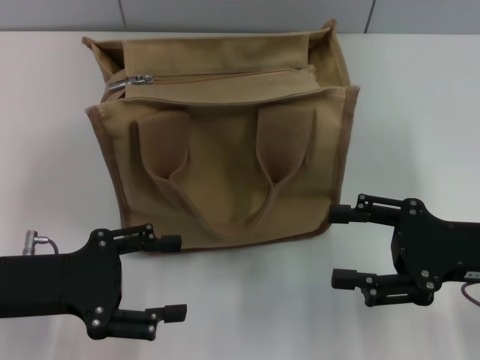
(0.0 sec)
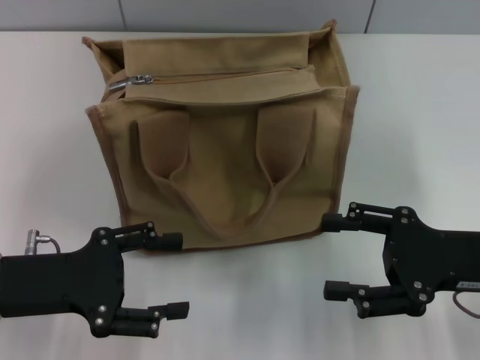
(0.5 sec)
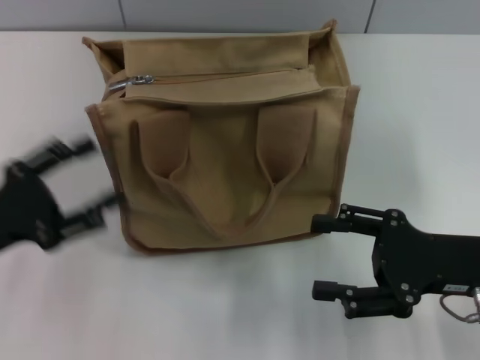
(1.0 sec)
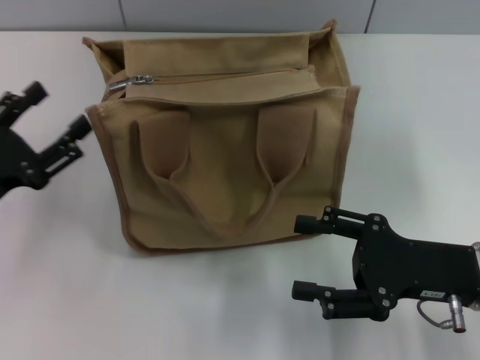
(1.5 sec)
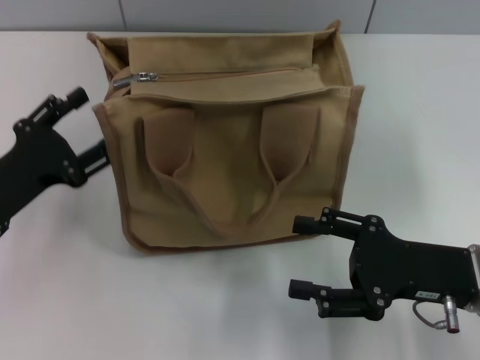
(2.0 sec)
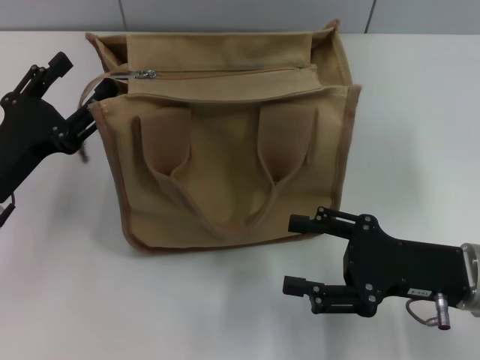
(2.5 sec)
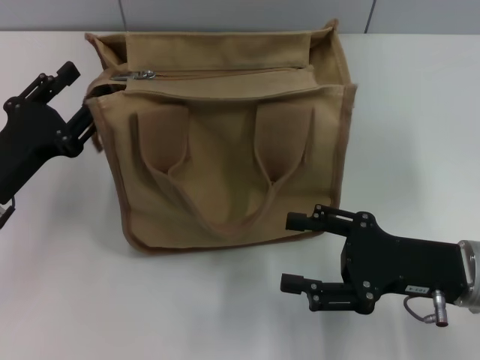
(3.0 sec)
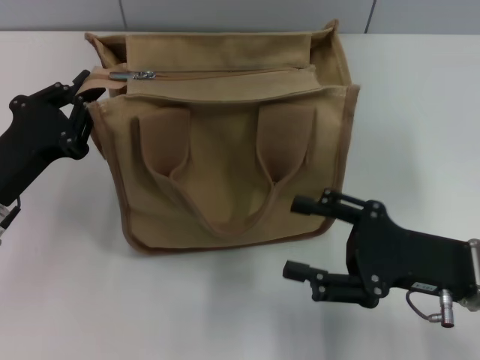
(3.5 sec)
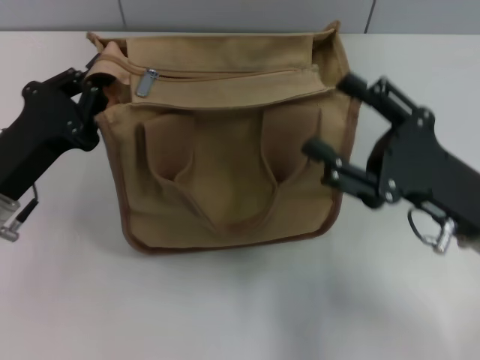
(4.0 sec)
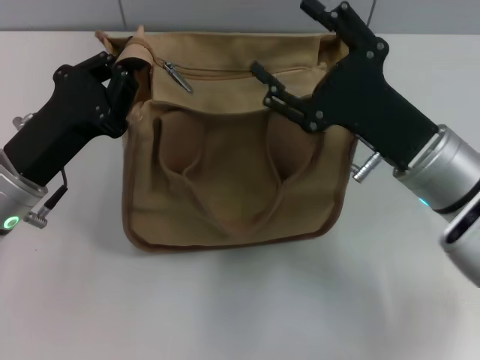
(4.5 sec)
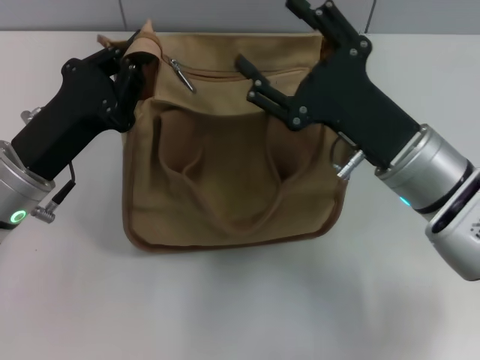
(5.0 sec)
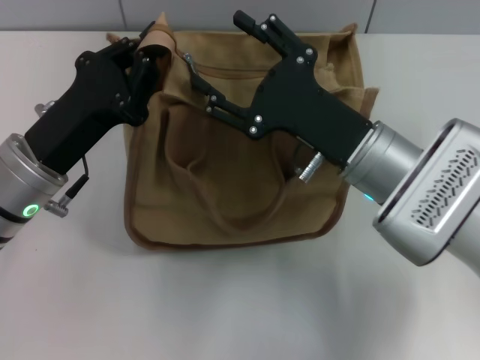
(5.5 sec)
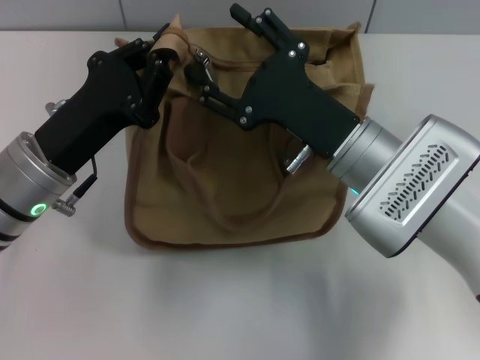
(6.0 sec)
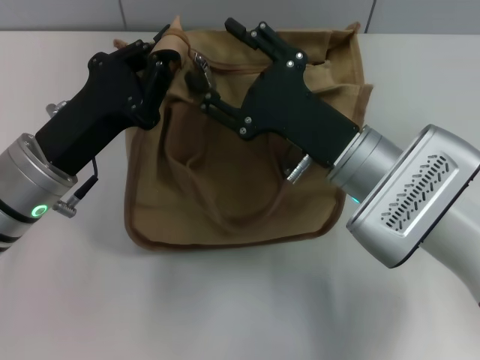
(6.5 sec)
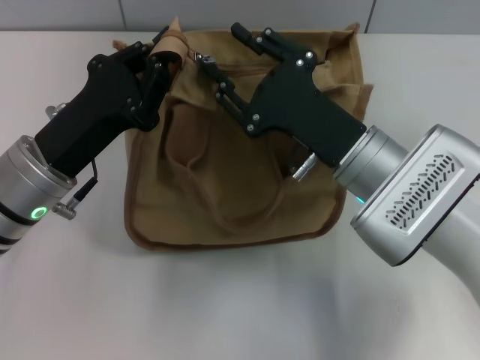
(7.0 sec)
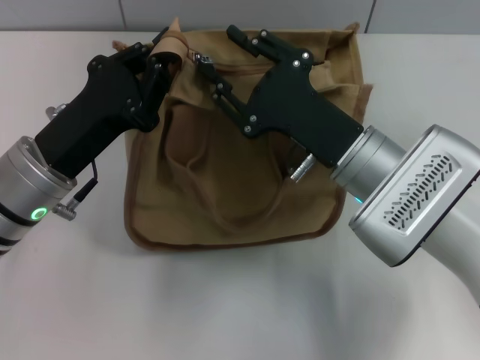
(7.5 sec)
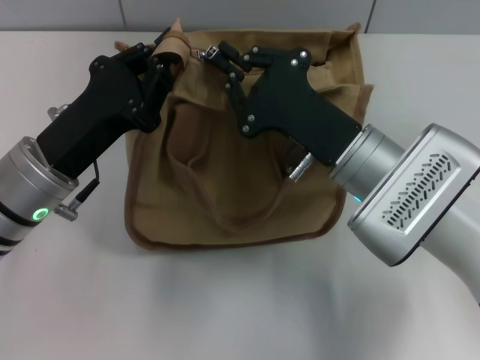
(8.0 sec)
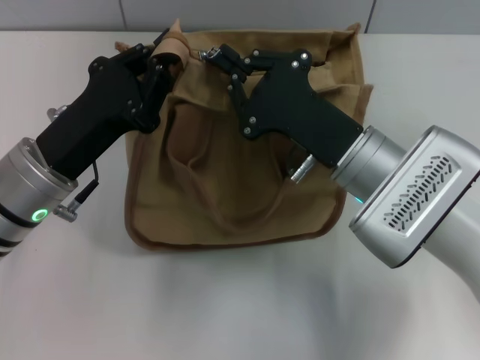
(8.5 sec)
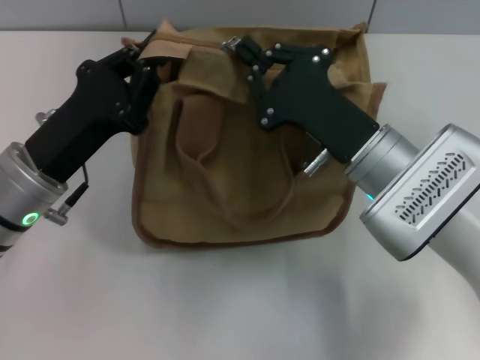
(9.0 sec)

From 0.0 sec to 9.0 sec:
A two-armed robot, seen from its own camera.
From 2.0 sec to 4.5 sec: The left gripper travels to the right by some 5 cm, and closes. Meanwhile the right gripper travels to the left and forward by roughly 10 cm.
From 4.5 sec to 7.0 sec: The right gripper changes place by some 5 cm.
From 7.0 sec to 9.0 sec: The right gripper closes its fingers.

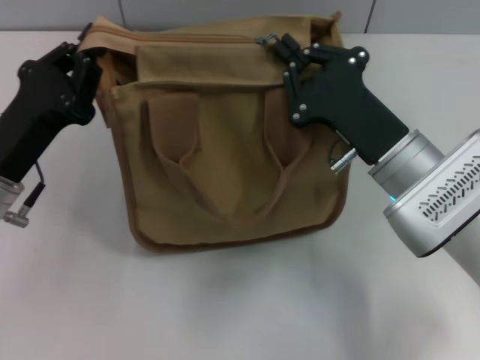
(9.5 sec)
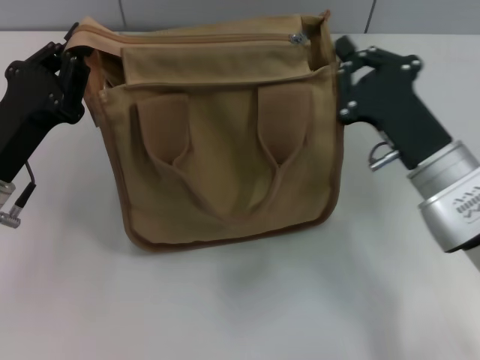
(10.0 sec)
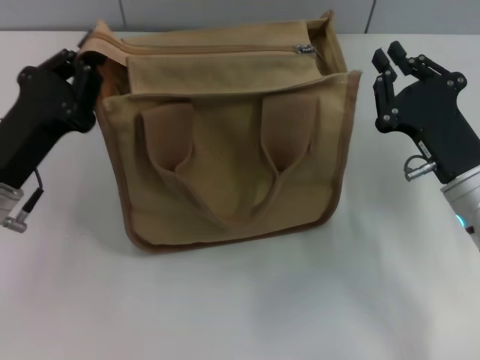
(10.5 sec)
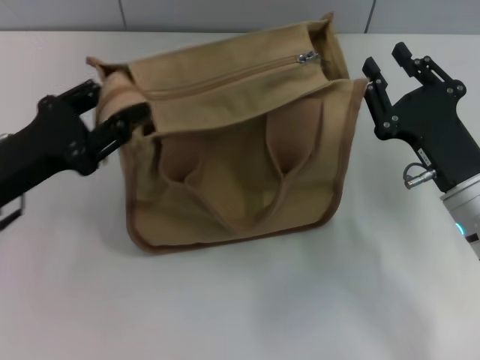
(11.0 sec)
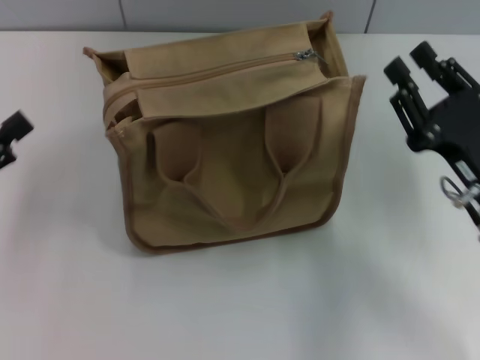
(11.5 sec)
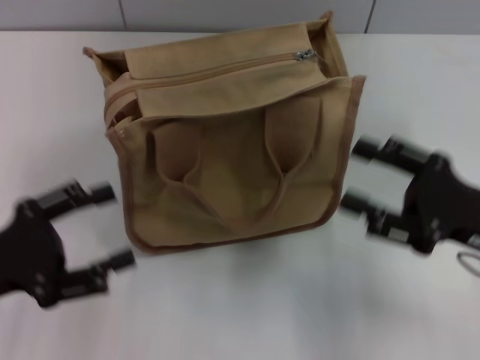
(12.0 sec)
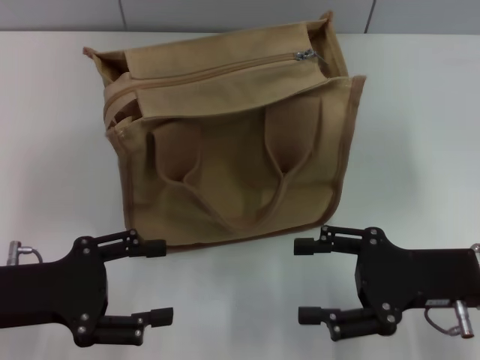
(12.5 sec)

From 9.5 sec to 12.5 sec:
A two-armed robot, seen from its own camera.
Step, from 10.5 sec to 11.0 sec: Grab the zipper with your left hand.
From 9.5 sec to 11.0 sec: The right gripper shifts some 5 cm to the right, and opens up; the left gripper opens its fingers.
From 11.0 sec to 12.5 sec: The left gripper moves backward, some 5 cm, moves some 10 cm to the left and comes back, and opens, while the right gripper opens.

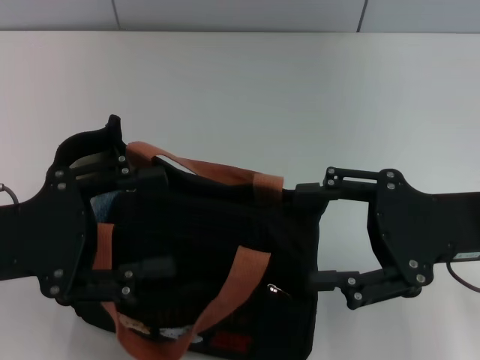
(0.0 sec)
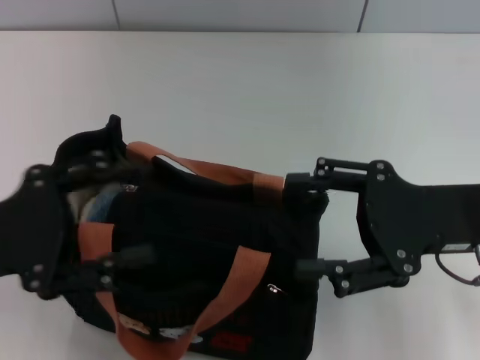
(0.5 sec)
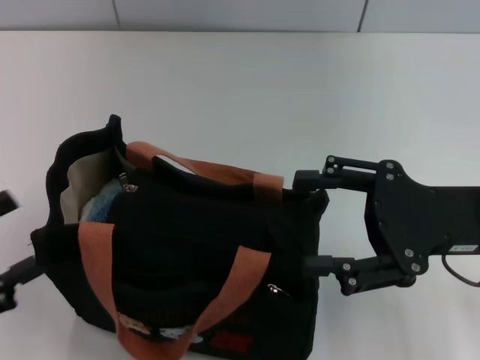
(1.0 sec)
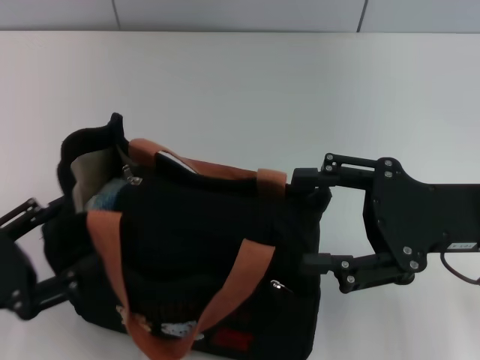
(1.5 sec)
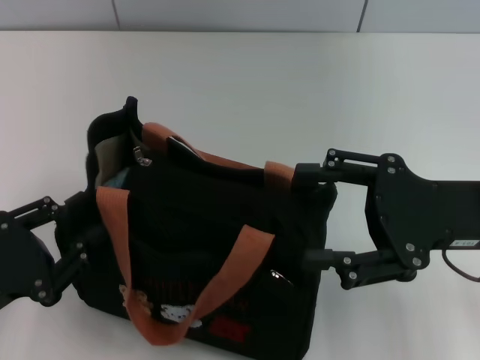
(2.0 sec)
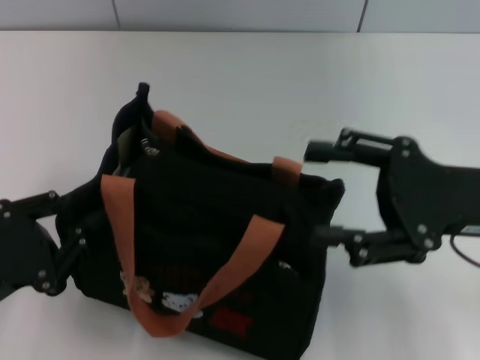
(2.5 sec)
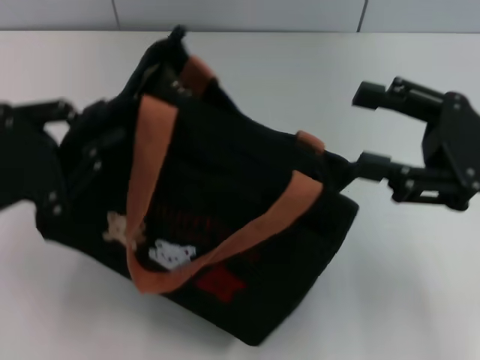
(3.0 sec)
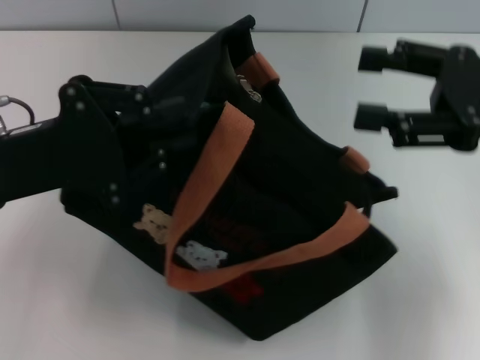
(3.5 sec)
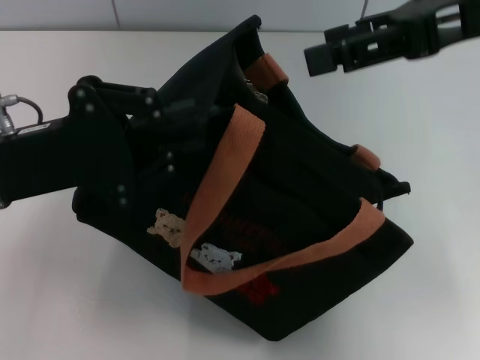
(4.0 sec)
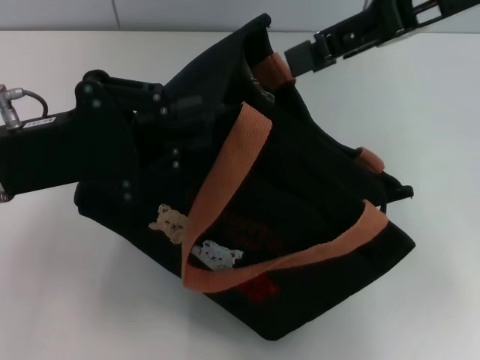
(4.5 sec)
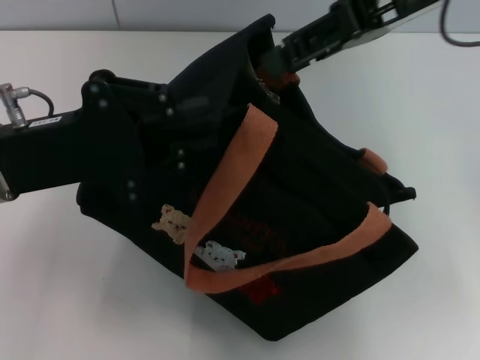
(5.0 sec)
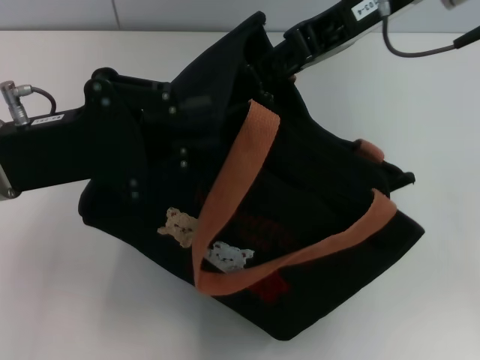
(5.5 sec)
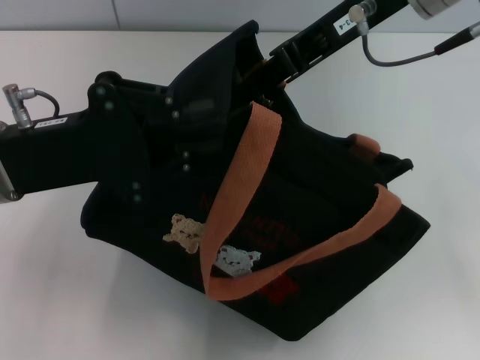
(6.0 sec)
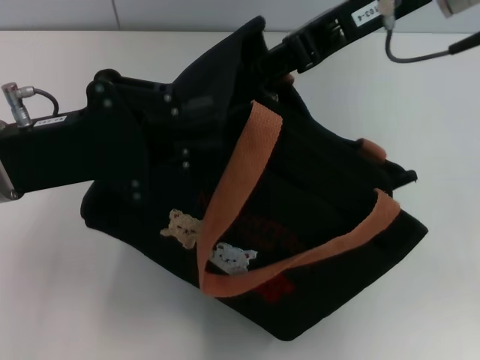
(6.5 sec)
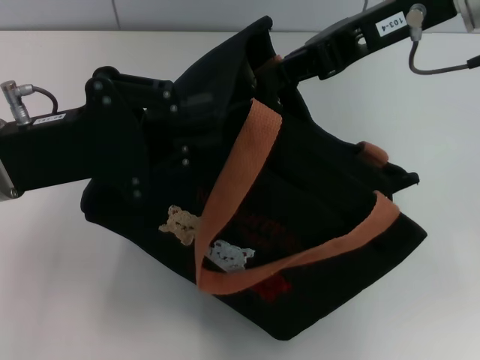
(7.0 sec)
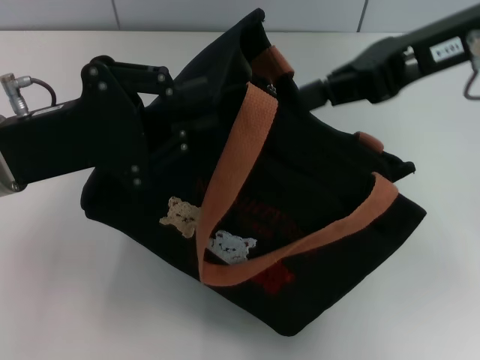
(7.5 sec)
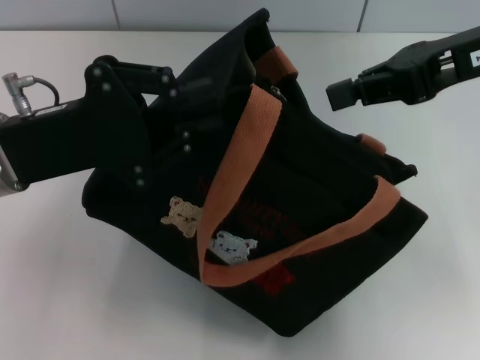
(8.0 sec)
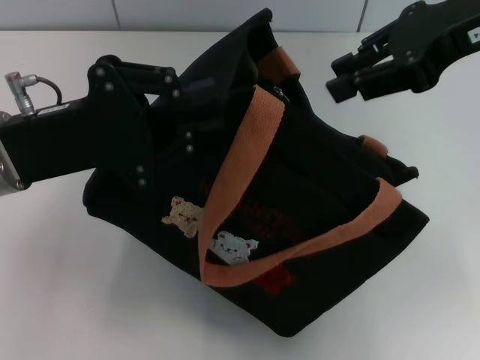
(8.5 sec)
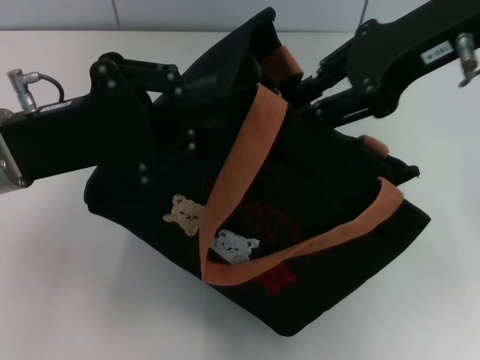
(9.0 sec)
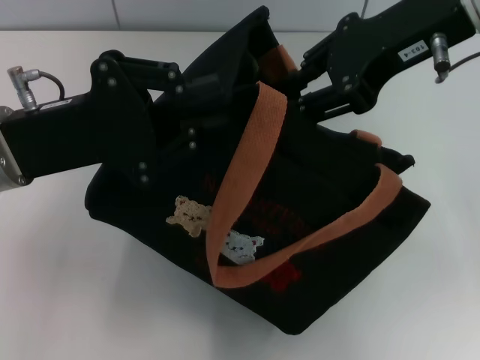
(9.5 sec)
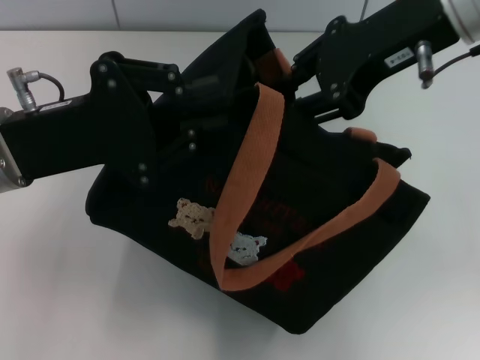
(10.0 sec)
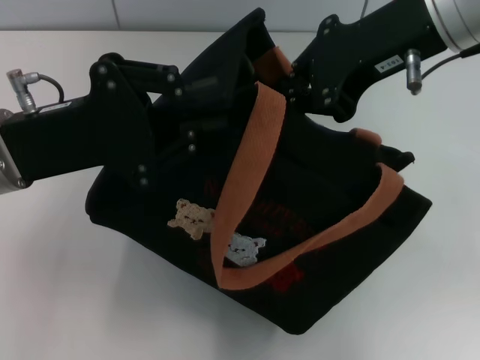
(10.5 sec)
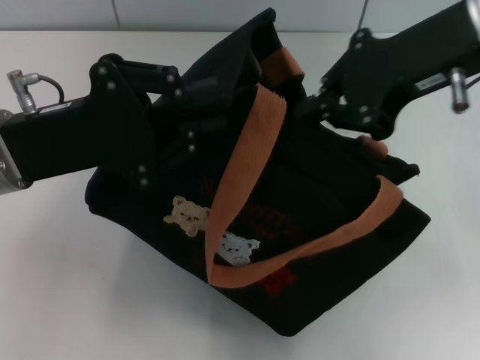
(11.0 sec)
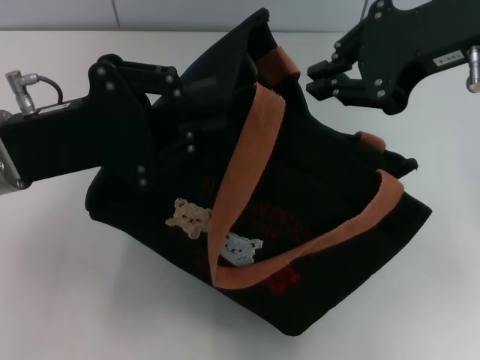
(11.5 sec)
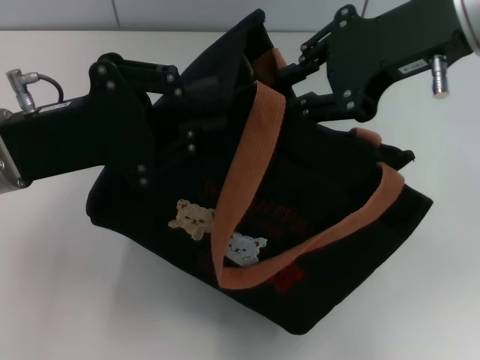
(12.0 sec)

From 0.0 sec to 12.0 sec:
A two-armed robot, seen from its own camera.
From 0.0 sec to 2.0 sec: The left gripper moves downward and backward, about 10 cm, and closes.
From 2.0 sec to 4.0 sec: The right gripper moves upward and forward, some 20 cm; the left gripper heads forward, upward and to the right, covering approximately 15 cm, and closes.
From 4.0 sec to 6.0 sec: The right gripper is displaced to the left by roughly 10 cm, and closes up.
From 6.0 sec to 8.0 sec: The right gripper heads to the right, covering some 10 cm.
From 8.0 sec to 10.0 sec: The right gripper travels to the left by some 5 cm, and opens up.
From 10.0 sec to 12.0 sec: The right gripper closes, then opens again.

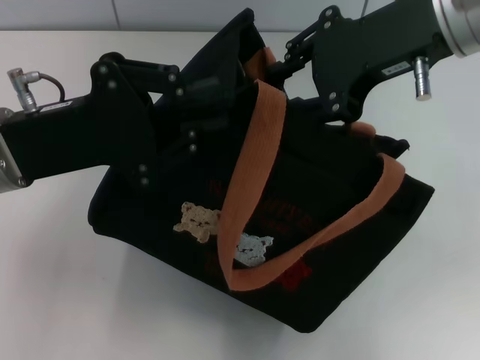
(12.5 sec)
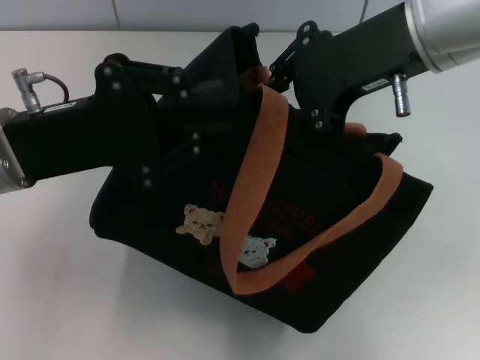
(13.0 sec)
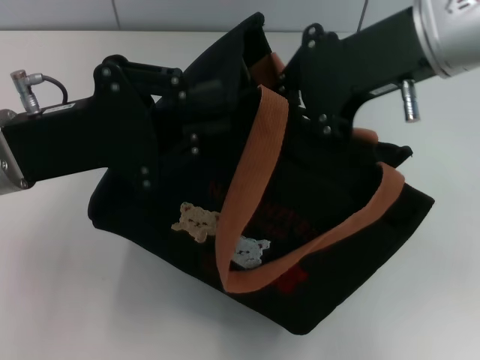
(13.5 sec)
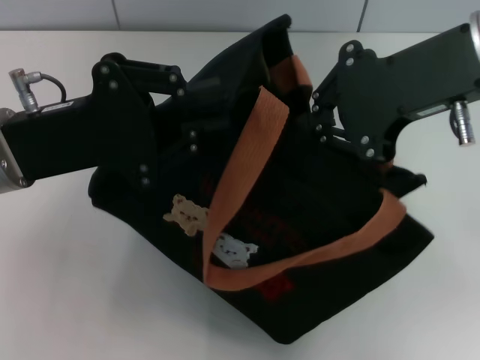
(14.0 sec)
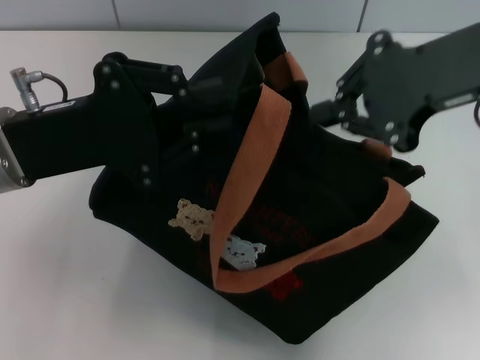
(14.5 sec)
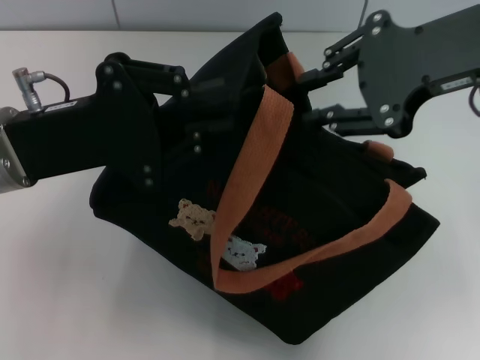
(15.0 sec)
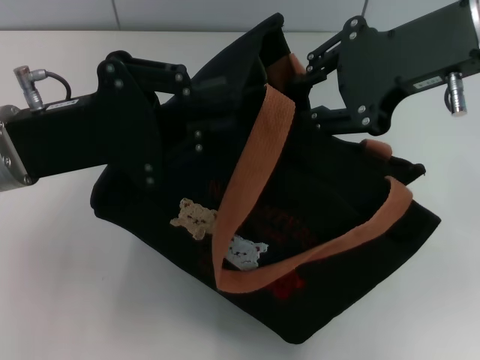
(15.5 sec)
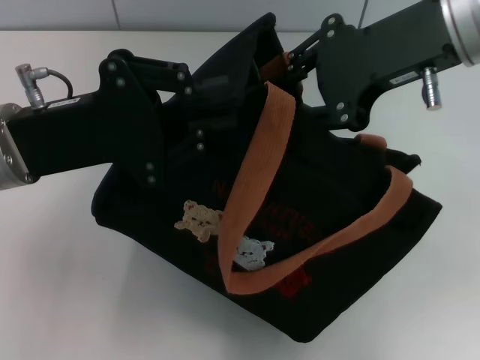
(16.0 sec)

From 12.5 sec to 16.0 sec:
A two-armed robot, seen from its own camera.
From 12.5 sec to 14.5 sec: The right gripper changes place by roughly 5 cm.
From 14.5 sec to 16.0 sec: The grippers make only small movements.
